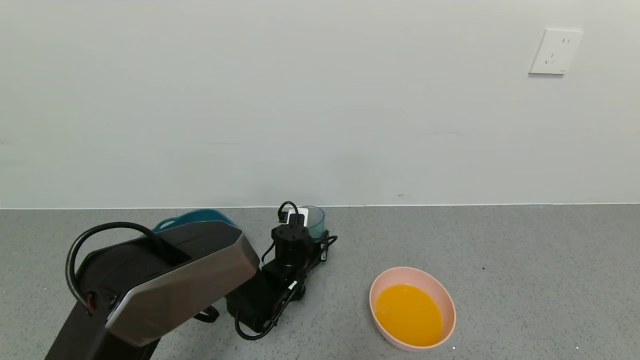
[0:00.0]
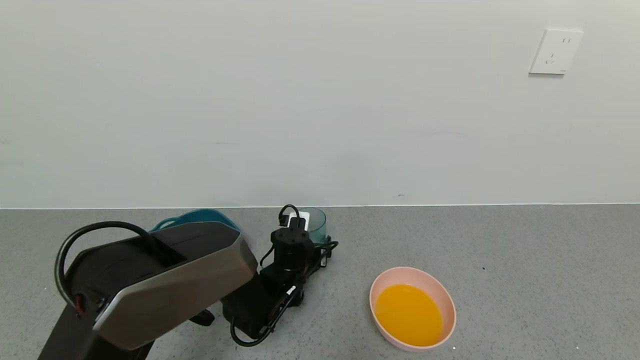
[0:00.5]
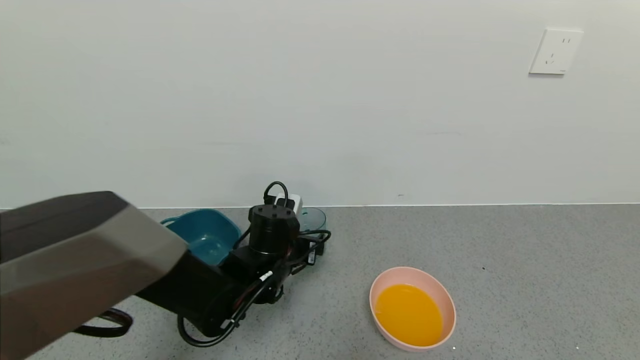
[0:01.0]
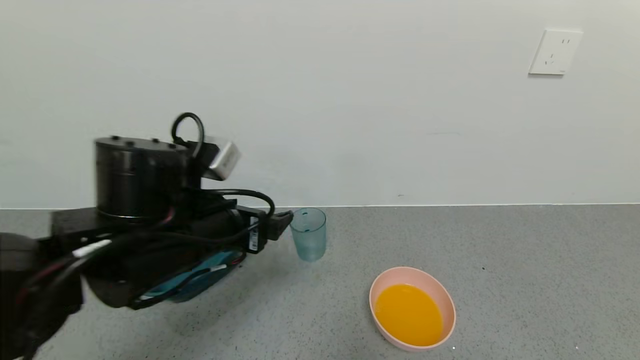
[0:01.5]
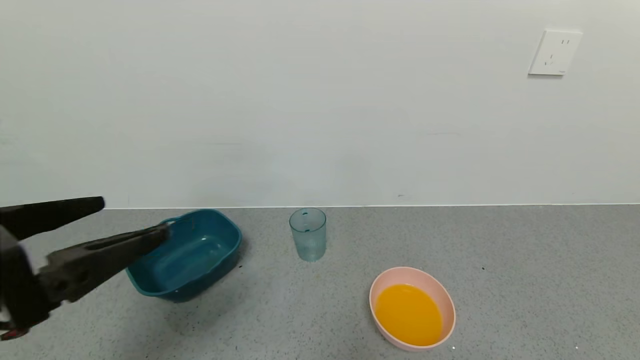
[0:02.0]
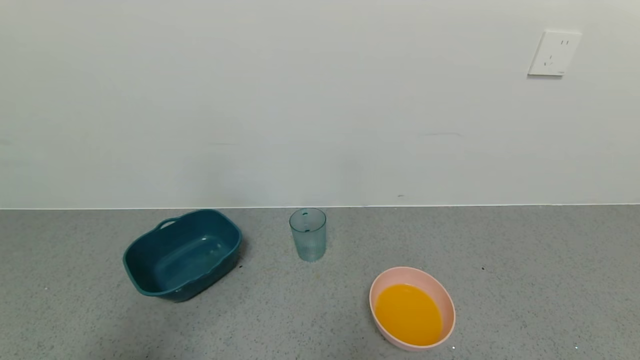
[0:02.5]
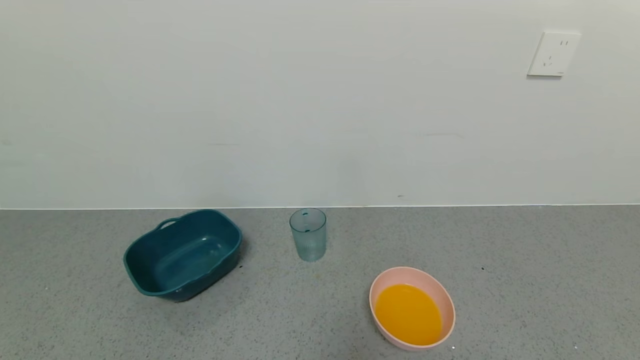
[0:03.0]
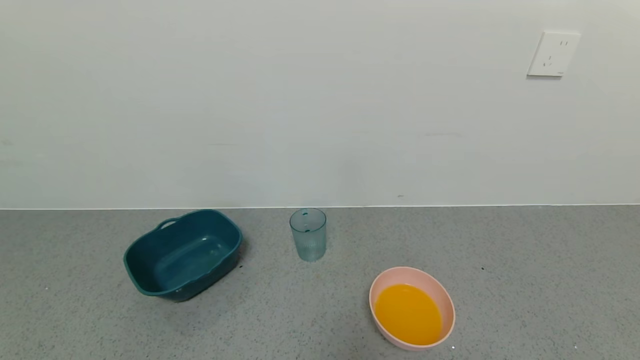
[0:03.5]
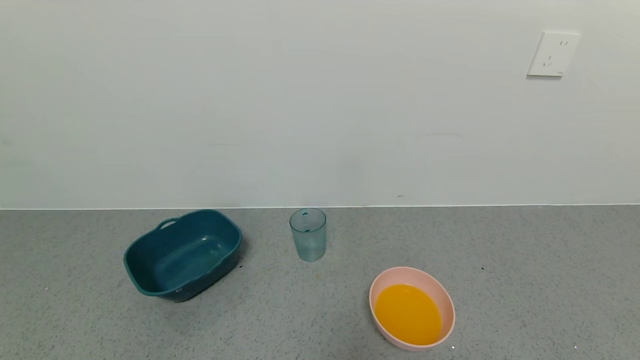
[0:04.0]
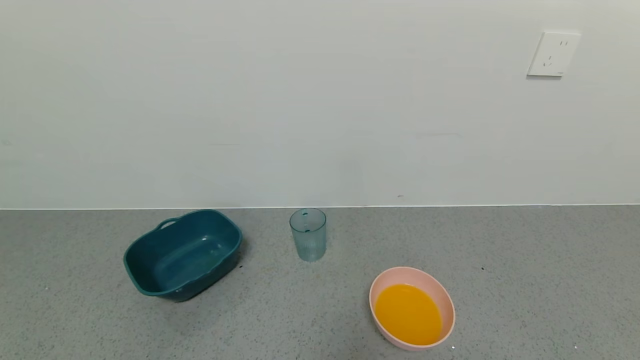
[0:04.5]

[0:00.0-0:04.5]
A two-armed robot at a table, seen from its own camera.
Task of the whole recording: use a gripper to pick up the cup and pour the liquid into a bowl or tray.
0:00.0 to 0:02.0: The left gripper shifts approximately 40 cm backward, upward and to the left, and opens.
0:02.0 to 0:04.5: The left gripper goes approximately 25 cm downward and backward.
